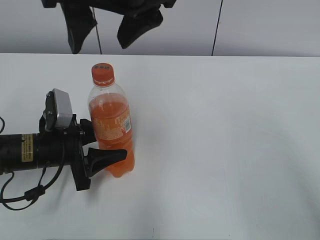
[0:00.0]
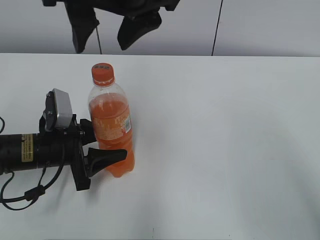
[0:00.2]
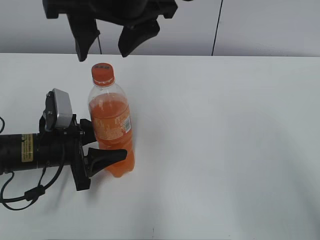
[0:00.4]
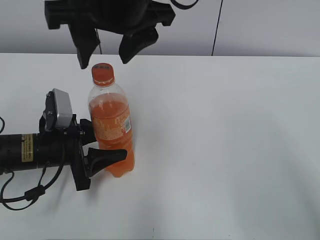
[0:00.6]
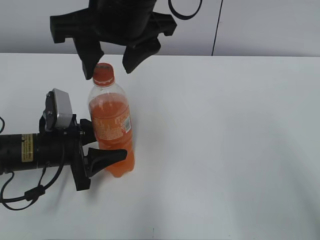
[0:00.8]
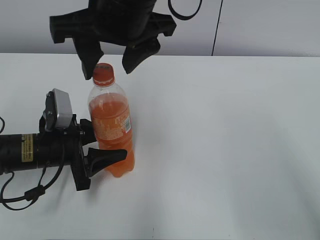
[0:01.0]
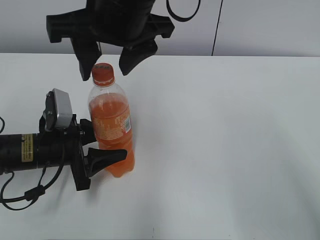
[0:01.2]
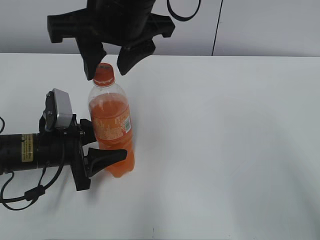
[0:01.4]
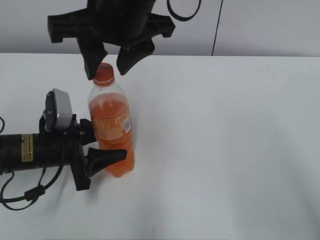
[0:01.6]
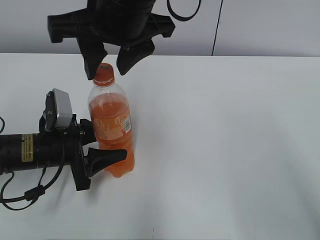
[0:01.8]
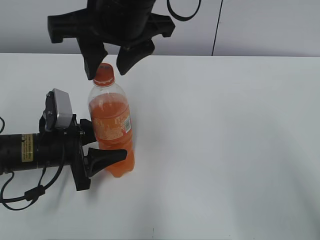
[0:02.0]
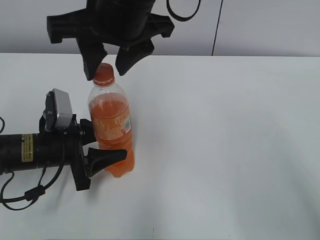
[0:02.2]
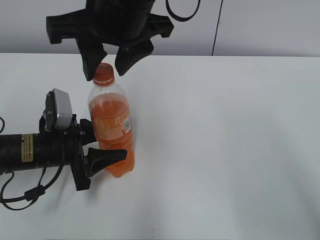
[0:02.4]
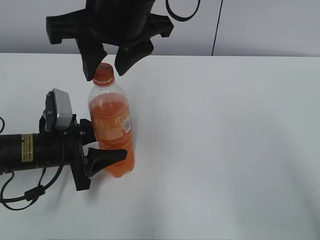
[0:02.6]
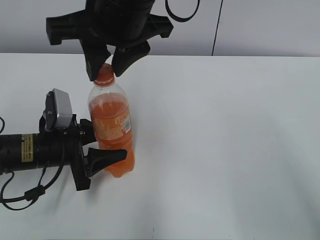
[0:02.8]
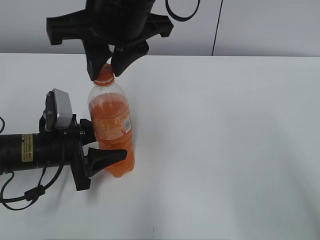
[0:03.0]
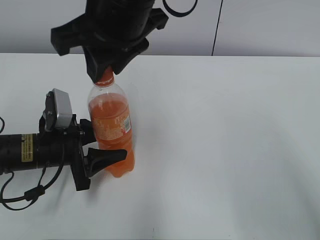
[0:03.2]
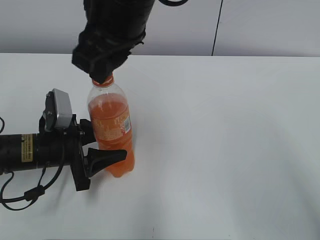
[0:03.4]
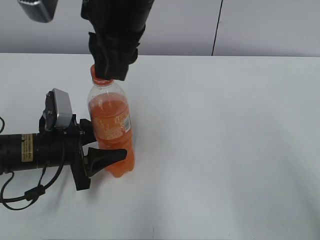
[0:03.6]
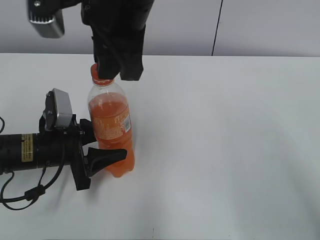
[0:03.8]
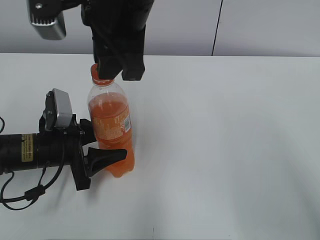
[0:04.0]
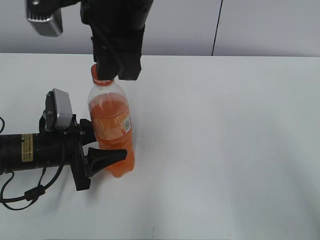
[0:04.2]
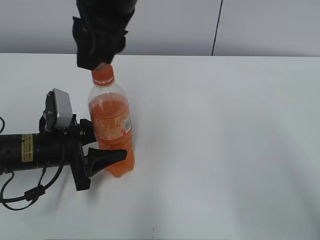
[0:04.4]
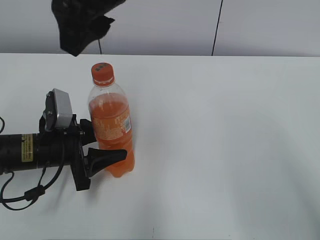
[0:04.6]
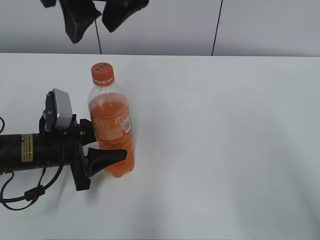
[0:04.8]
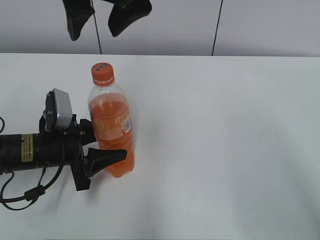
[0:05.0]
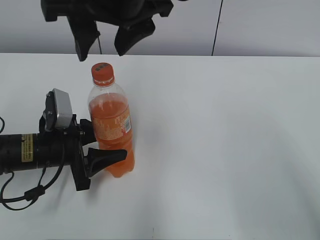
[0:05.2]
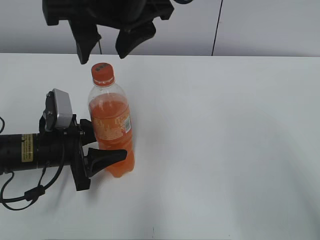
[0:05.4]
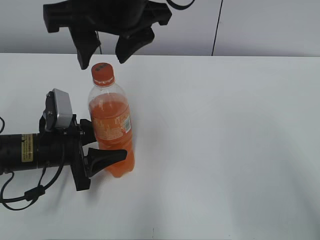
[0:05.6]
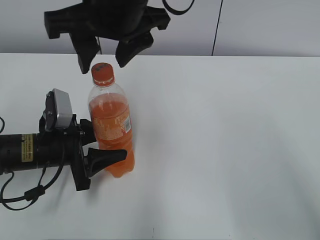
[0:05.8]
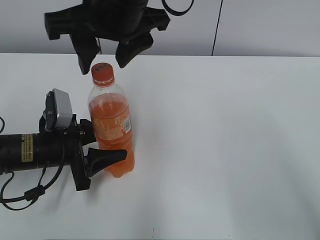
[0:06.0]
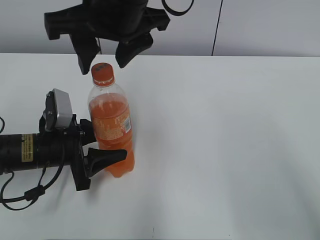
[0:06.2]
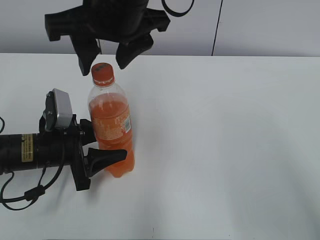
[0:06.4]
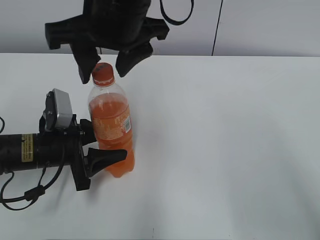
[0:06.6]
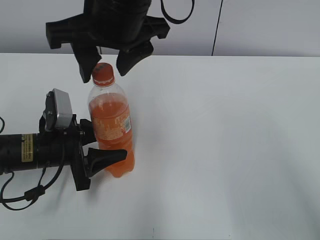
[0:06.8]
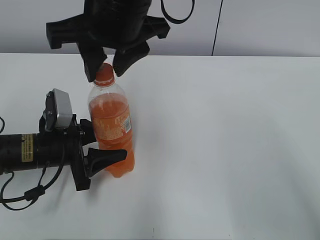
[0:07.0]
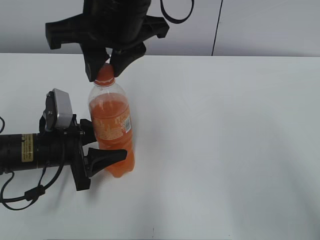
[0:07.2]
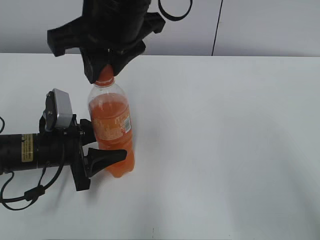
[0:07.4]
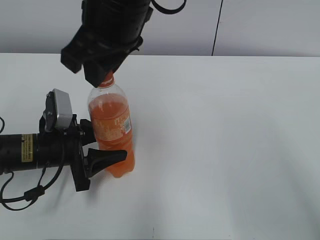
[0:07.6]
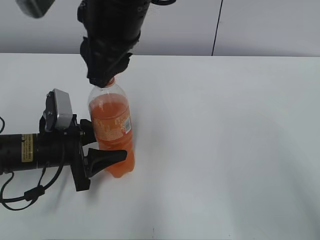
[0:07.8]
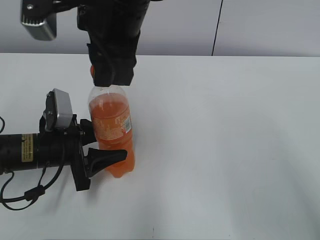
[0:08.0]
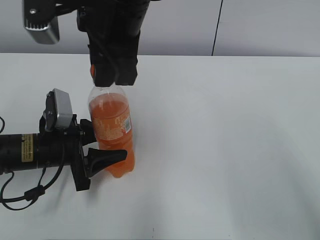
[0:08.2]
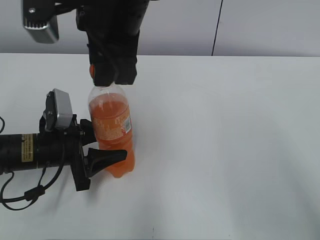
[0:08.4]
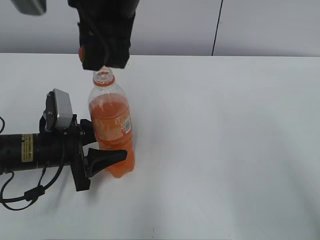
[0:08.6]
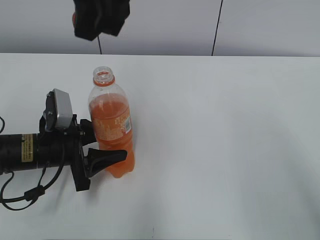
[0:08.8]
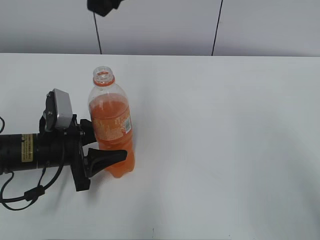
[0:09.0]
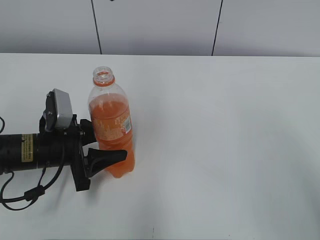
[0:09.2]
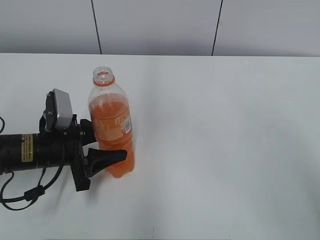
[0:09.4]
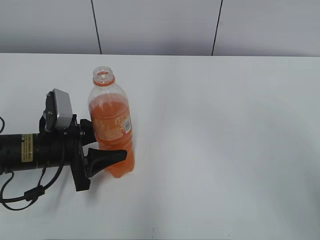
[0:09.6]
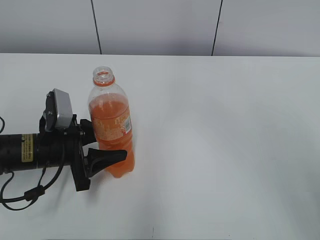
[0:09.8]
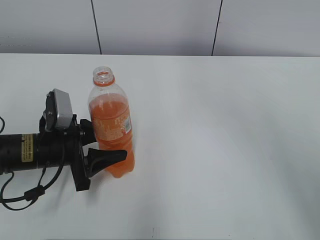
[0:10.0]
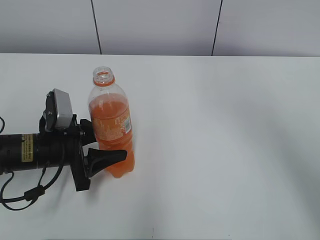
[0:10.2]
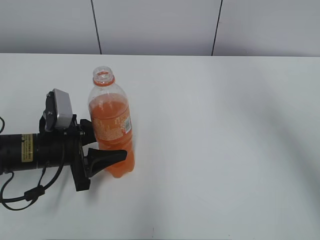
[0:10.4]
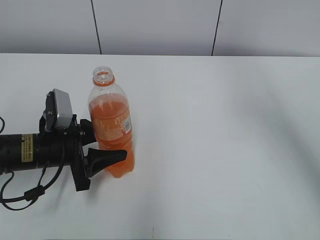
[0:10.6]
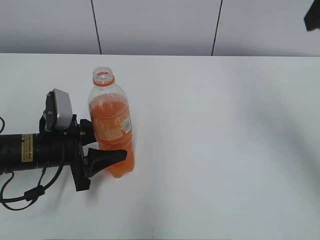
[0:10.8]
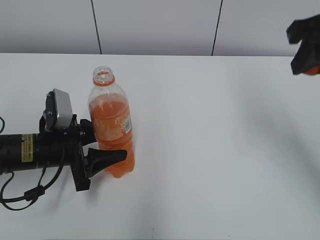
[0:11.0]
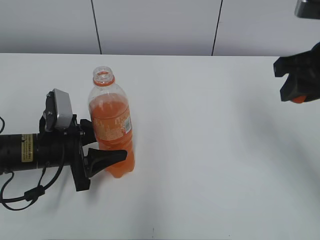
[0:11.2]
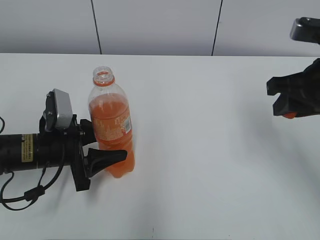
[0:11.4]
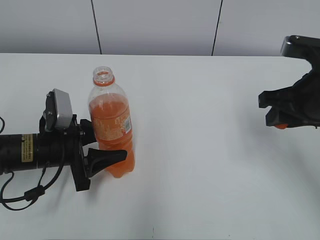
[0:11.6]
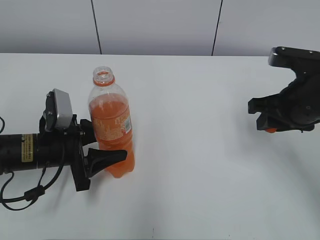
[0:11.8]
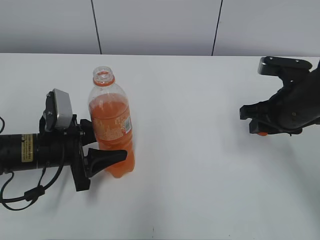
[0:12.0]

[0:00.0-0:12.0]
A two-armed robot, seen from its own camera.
0:00.0 to 0:01.6: The right gripper closes its fingers.
0:01.6 to 0:03.0: The right gripper closes.
0:04.4 to 0:06.0: The right gripper opens its fingers.
0:06.0 to 0:07.6: The right gripper closes up.
0:07.6 to 0:09.0: The right gripper moves upward, approximately 10 cm.
0:09.0 to 0:10.4: The right gripper is displaced to the right by some 20 cm.
0:10.4 to 0:12.0: The right gripper heads downward, covering about 30 cm.

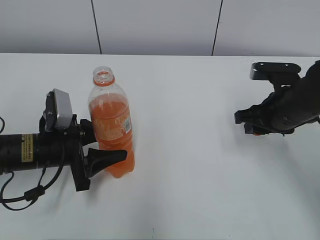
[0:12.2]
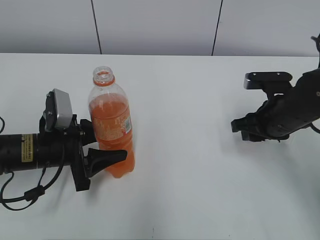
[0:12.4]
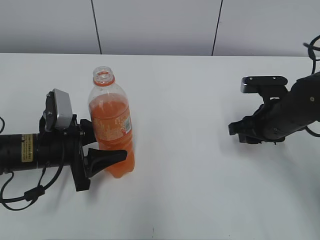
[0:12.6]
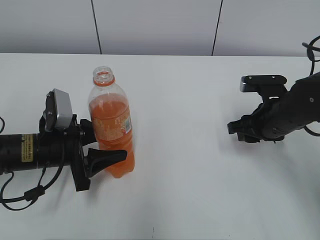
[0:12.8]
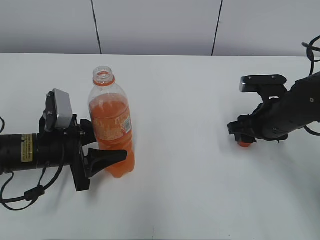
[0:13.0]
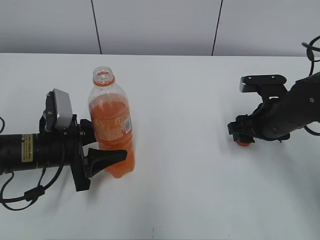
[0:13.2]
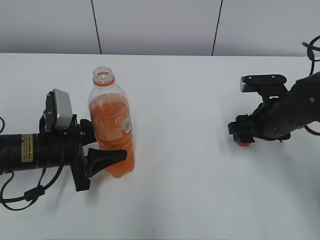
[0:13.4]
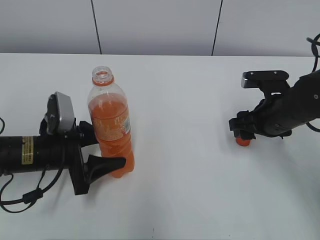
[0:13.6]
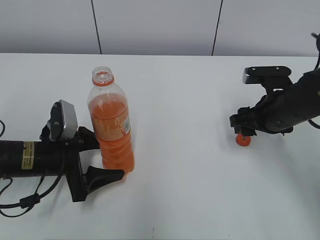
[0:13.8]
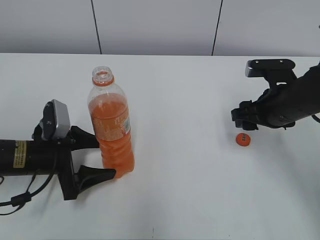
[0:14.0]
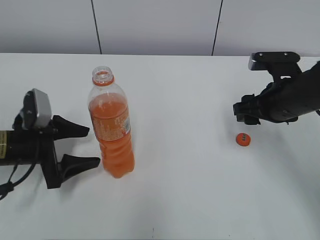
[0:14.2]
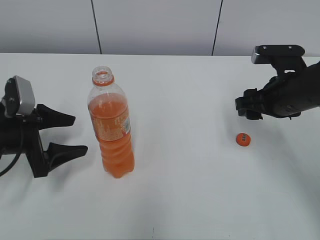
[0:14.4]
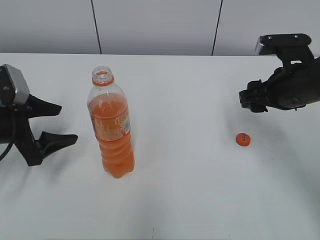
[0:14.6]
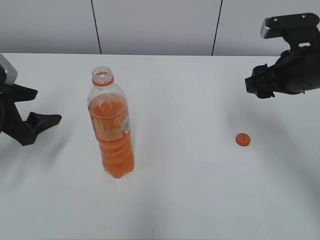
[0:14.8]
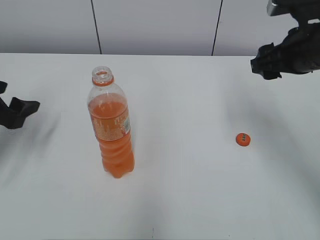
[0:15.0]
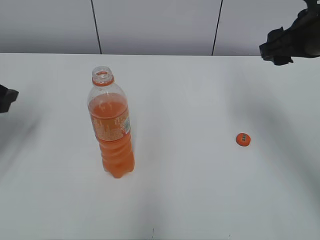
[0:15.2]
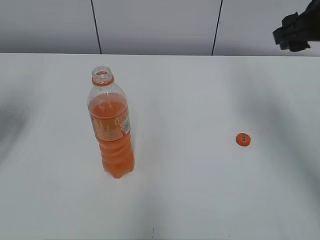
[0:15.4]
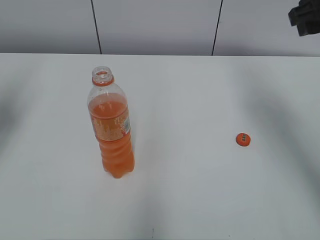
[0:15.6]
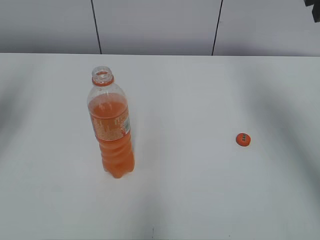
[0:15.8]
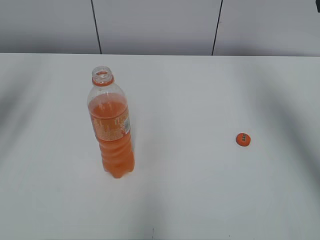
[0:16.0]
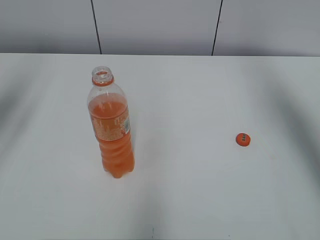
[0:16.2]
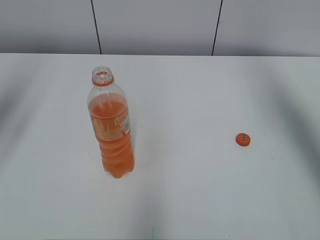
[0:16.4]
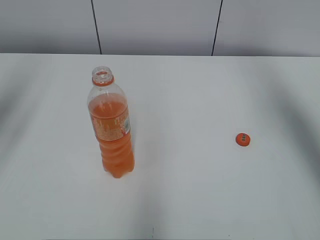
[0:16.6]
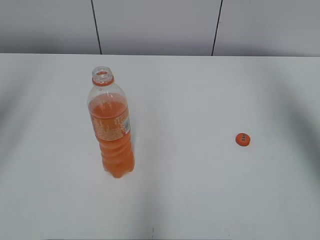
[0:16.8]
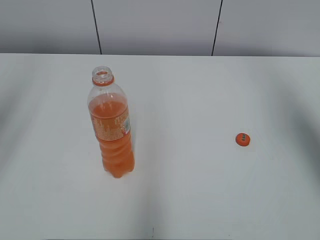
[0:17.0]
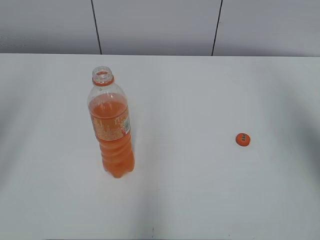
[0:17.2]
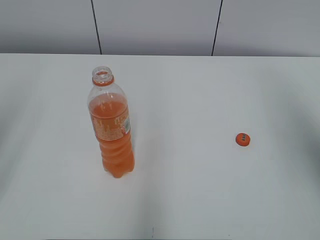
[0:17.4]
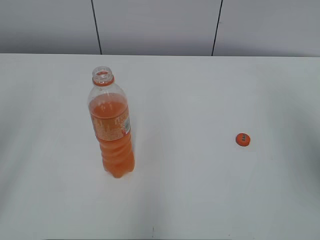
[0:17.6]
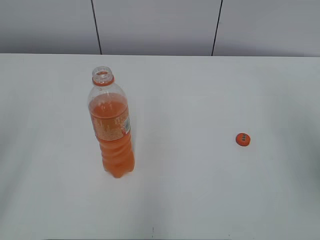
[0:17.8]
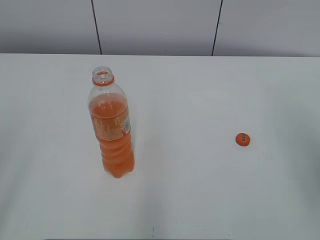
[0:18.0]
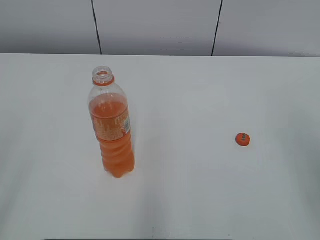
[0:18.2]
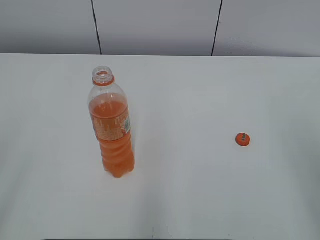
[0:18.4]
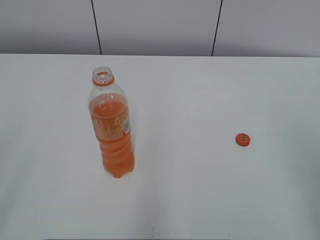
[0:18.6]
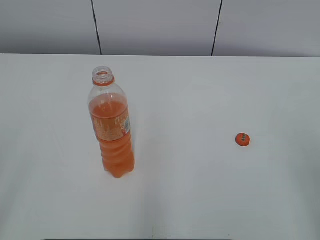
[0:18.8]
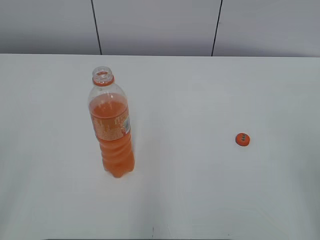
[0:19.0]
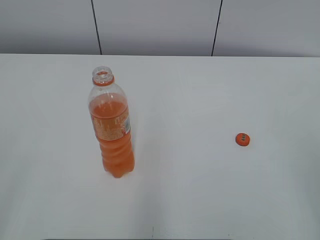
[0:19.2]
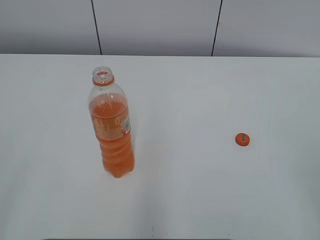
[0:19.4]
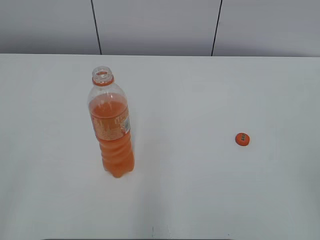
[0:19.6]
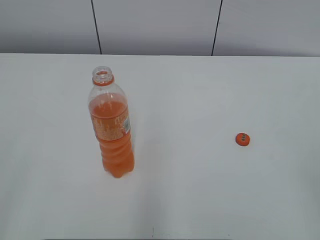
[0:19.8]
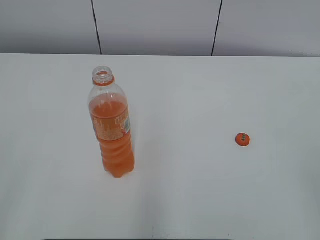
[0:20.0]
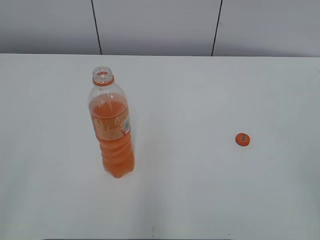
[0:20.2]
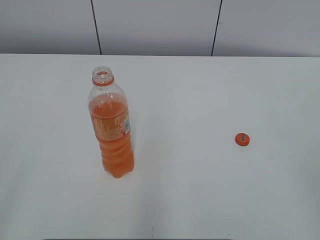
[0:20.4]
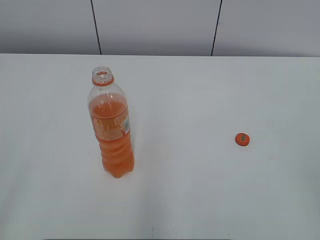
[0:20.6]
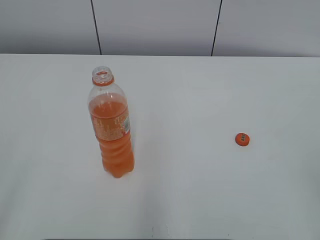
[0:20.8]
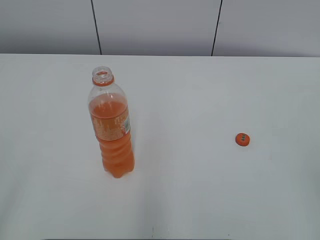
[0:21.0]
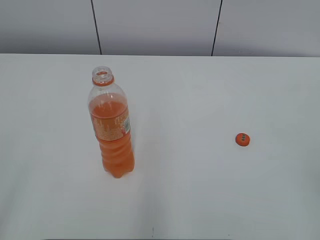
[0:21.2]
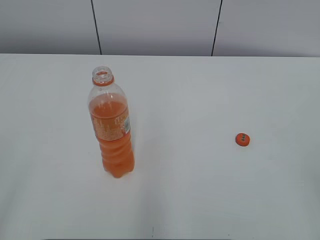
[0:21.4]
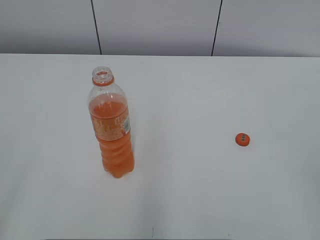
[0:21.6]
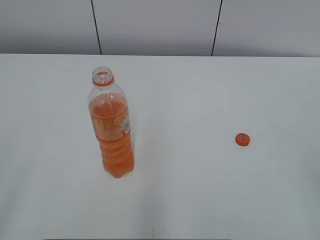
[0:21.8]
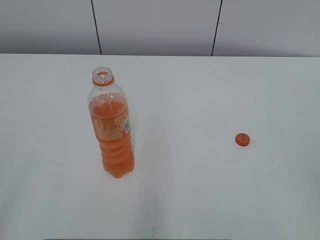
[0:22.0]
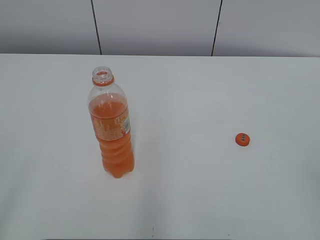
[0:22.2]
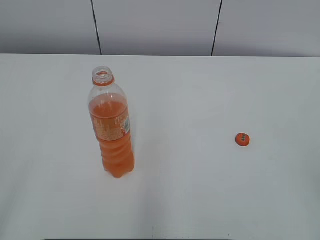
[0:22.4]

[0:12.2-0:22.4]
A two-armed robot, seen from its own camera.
0:12.2 to 0:13.6: The right gripper opens up.
0:13.6 to 0:15.2: The right gripper heads upward, covering roughly 15 cm; the left gripper moves to the left and upward, roughly 15 cm.
0:15.2 to 0:16.6: Both grippers move upward, approximately 15 cm.
0:16.6 to 0:18.0: The left gripper is displaced backward by some 20 cm, while the right gripper shifts some 20 cm backward and downward.
0:21.0 to 0:22.4: Neither gripper changes place.
